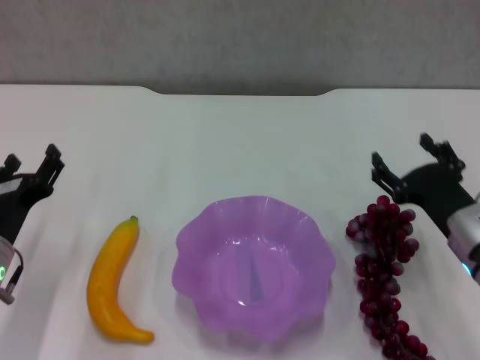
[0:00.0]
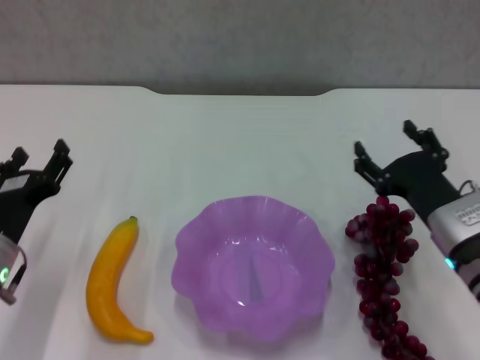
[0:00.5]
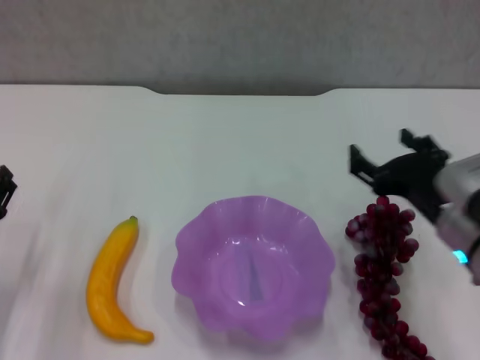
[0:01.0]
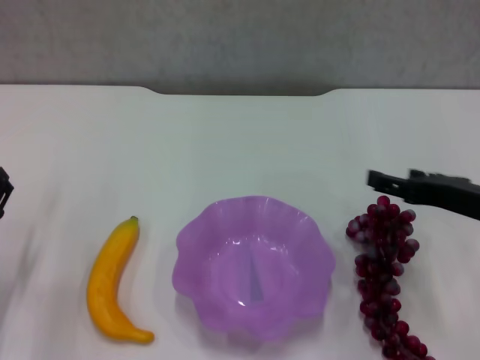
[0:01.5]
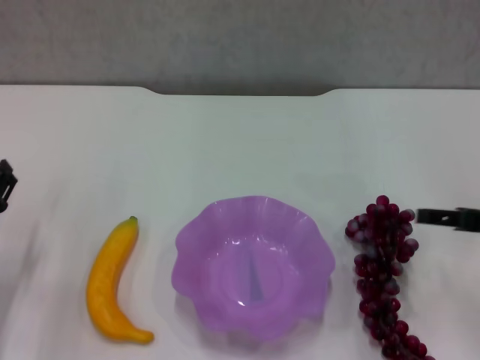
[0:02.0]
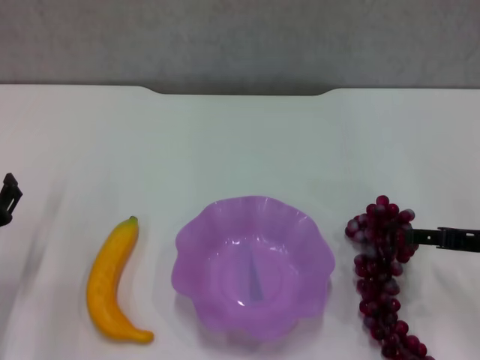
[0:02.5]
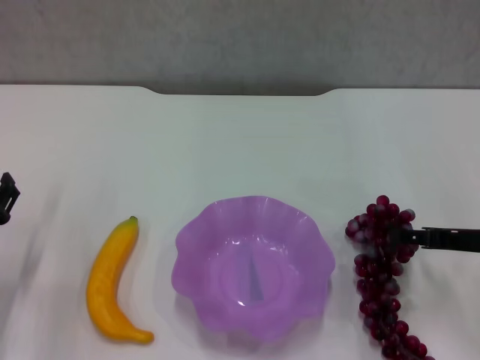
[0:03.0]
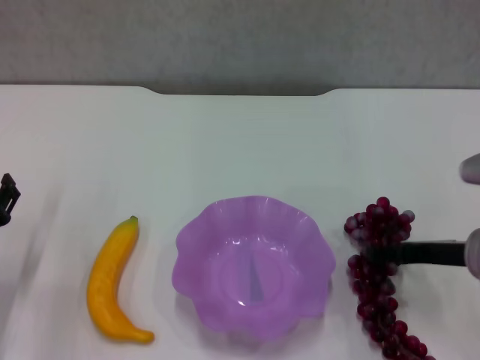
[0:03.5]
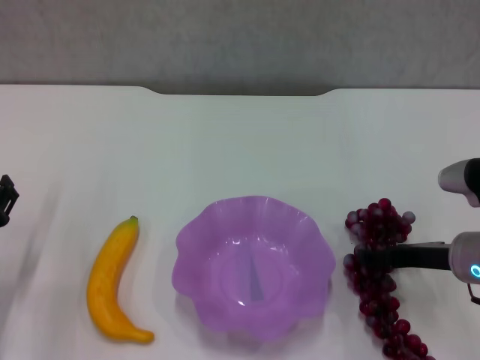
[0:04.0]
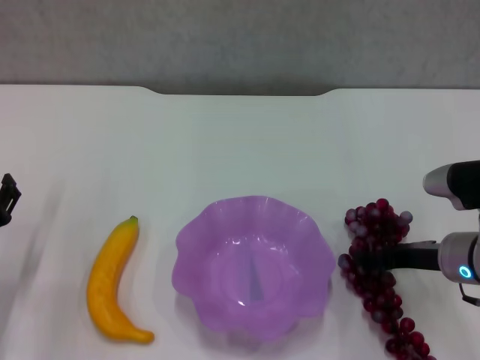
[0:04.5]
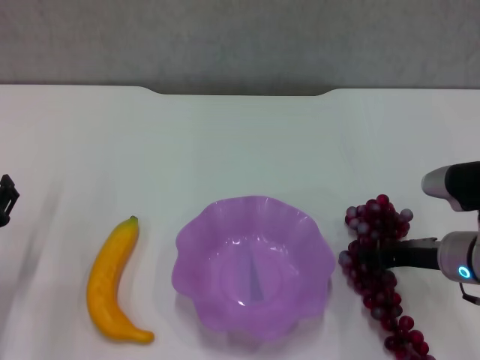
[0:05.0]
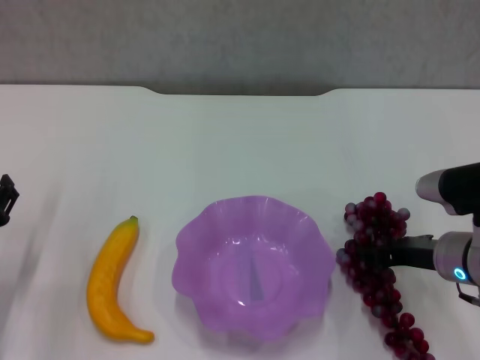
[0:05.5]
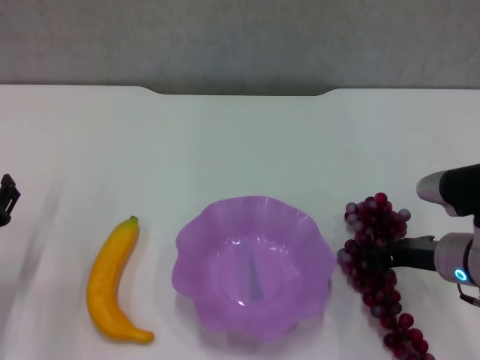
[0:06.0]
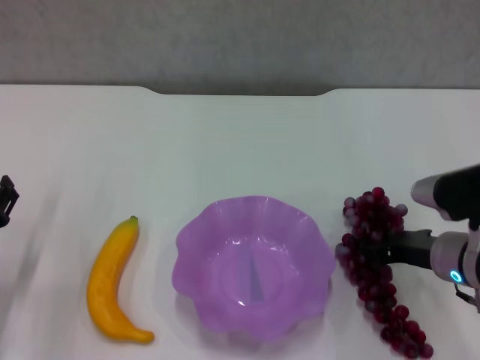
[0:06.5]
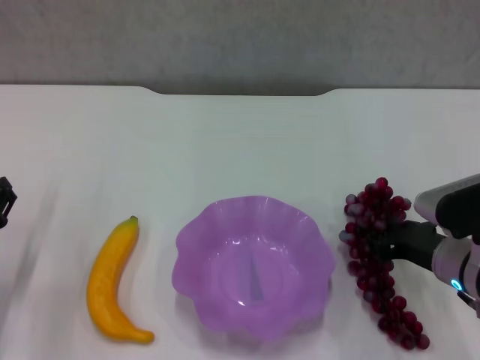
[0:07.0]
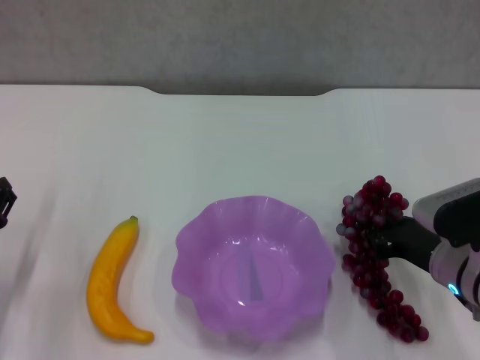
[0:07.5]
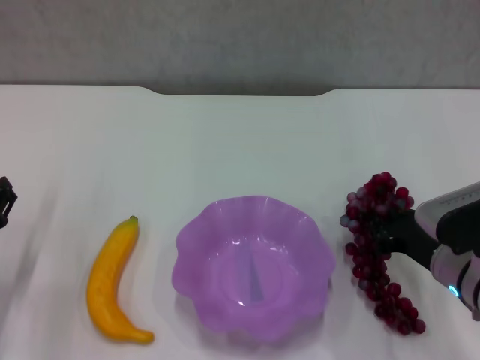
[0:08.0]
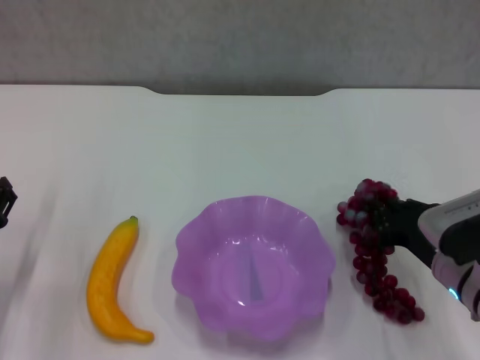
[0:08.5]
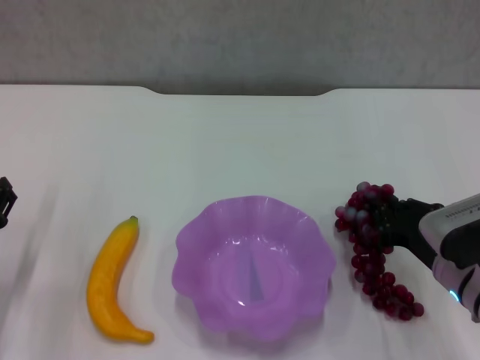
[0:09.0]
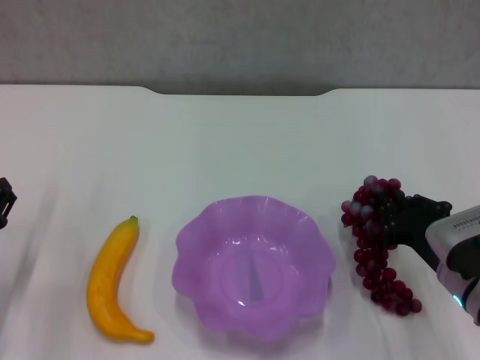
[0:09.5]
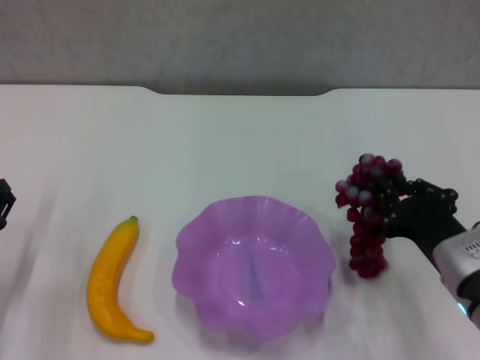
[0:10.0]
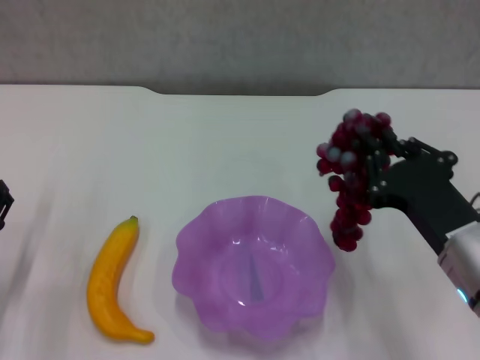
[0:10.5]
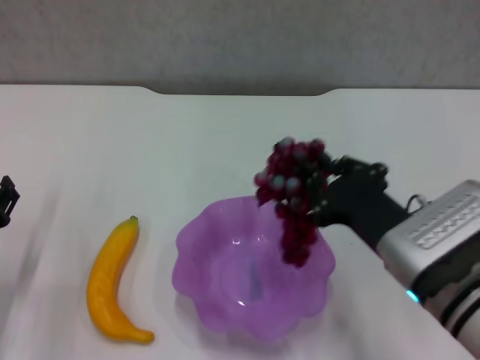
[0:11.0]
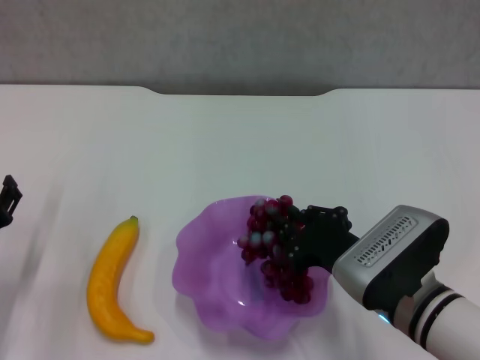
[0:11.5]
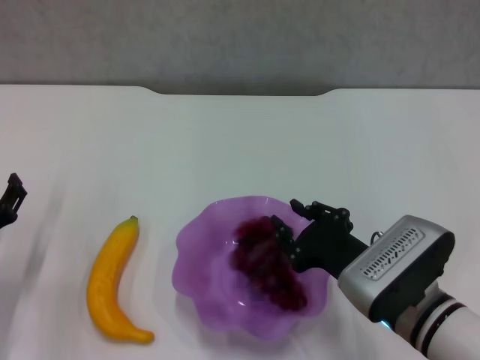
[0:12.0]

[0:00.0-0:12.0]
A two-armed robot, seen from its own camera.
Step, 0:00.0 to 0:05.5: Grasp the grape with right gripper.
0:00.0 to 0:02.0: The right gripper shifts about 10 cm upward and to the right.
0:02.0 to 0:04.0: The right gripper goes approximately 10 cm downward and to the left.
0:04.0 to 0:06.0: The right gripper closes.
0:10.0 to 0:12.0: The right gripper goes some 5 cm to the left.

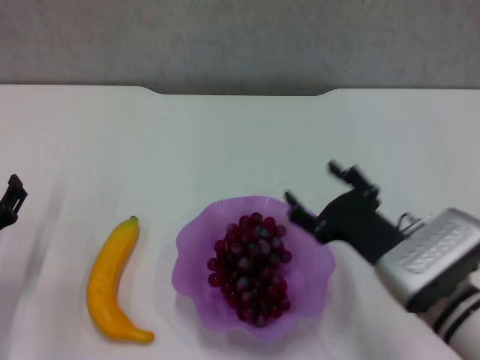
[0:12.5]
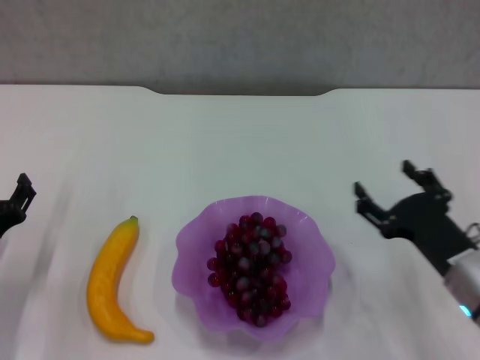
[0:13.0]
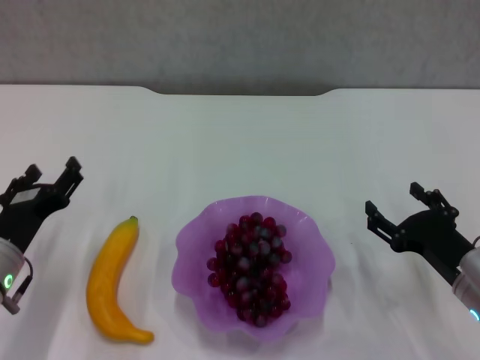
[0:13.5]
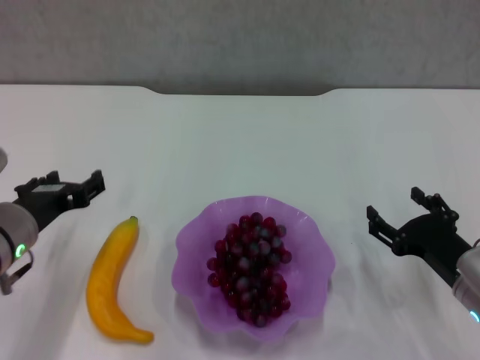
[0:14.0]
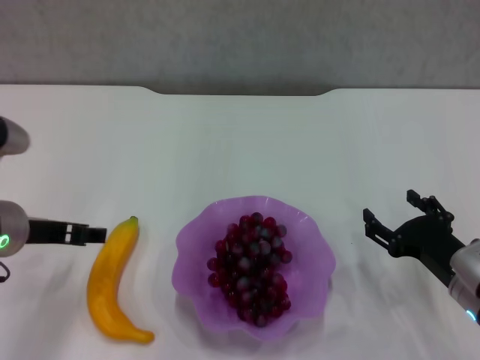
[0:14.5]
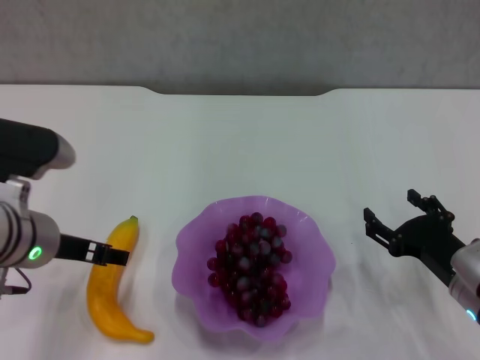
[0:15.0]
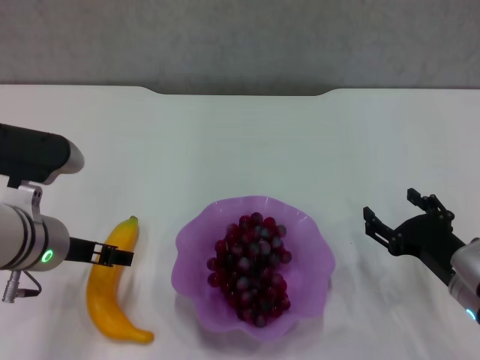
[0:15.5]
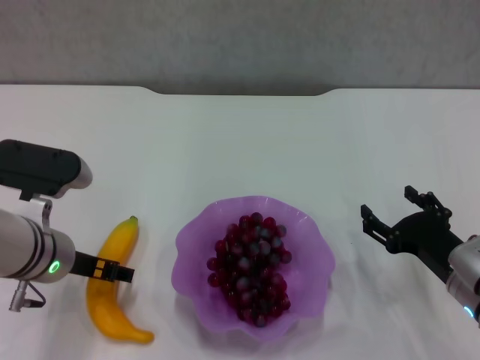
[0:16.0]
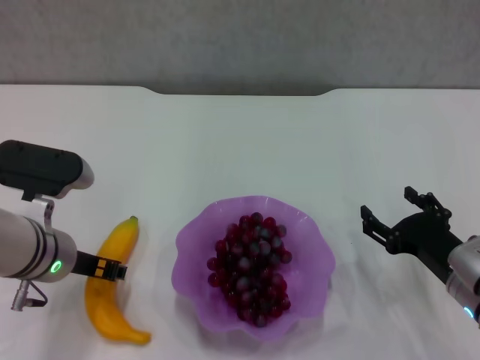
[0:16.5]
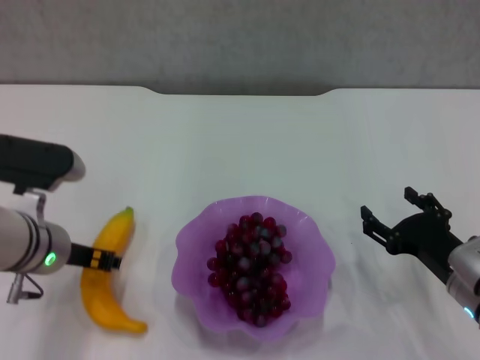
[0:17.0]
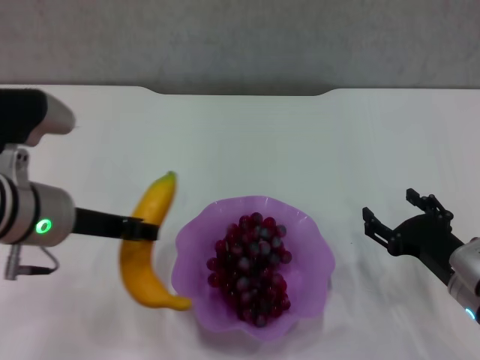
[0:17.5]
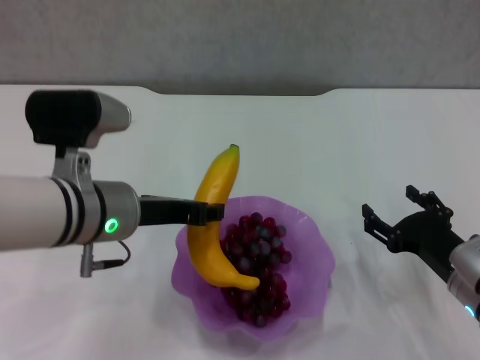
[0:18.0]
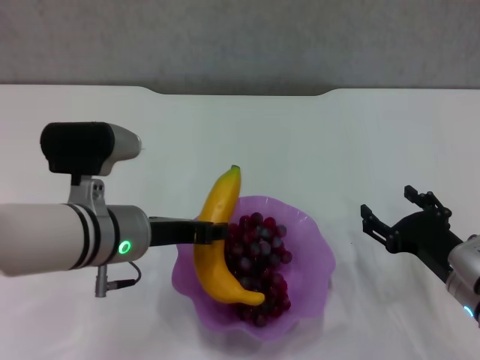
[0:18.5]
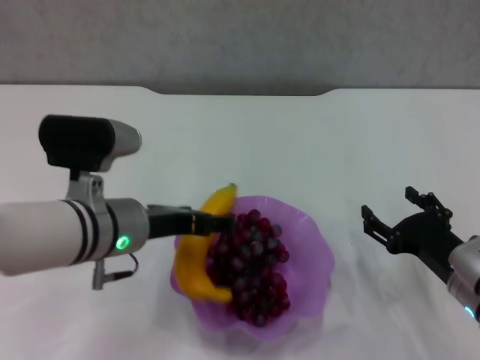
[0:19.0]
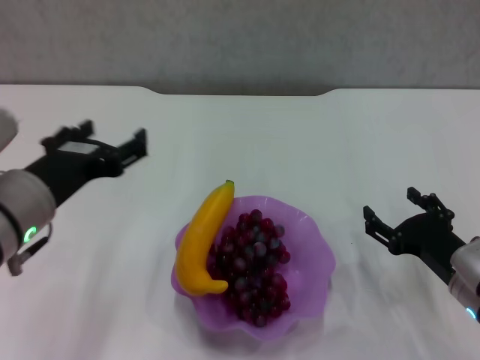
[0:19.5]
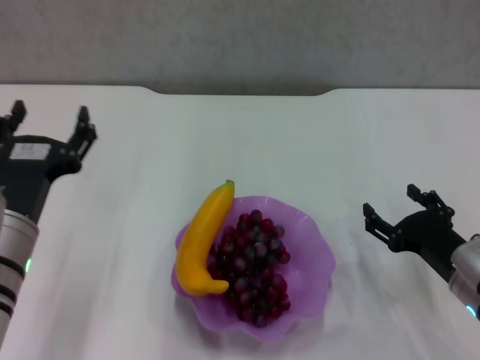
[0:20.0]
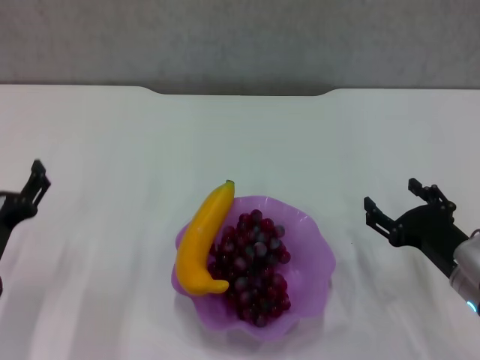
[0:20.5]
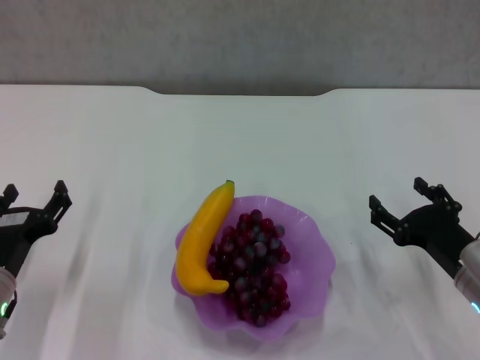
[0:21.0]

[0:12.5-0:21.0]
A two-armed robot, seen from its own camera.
Step, 0:13.0 to 0:16.5: Grasp the banana with left gripper.
Step, 0:17.0 to 0:19.0: Place the banana in the purple plate with left gripper.
0:12.5 to 0:14.5: The right gripper goes some 10 cm to the right; the left gripper travels upward and to the right by roughly 10 cm.
0:14.5 to 0:16.5: The left gripper moves some 5 cm.
0:16.5 to 0:19.0: The left gripper heads to the right, covering some 5 cm, and closes, then reopens.
0:19.0 to 0:21.0: The left gripper shifts roughly 15 cm to the left, downward and backward.

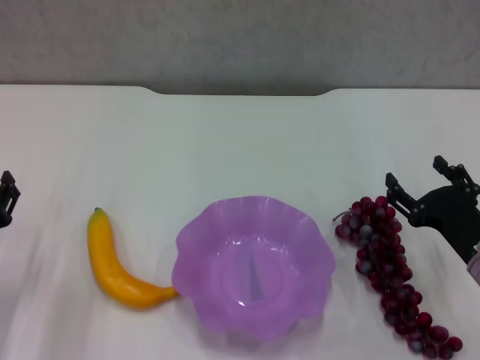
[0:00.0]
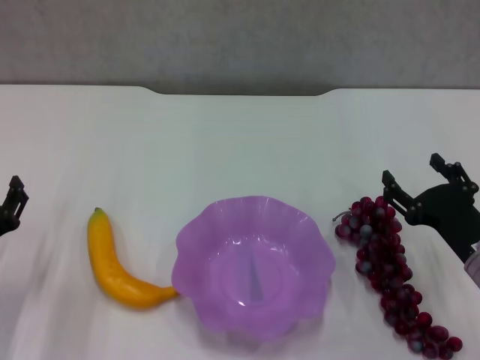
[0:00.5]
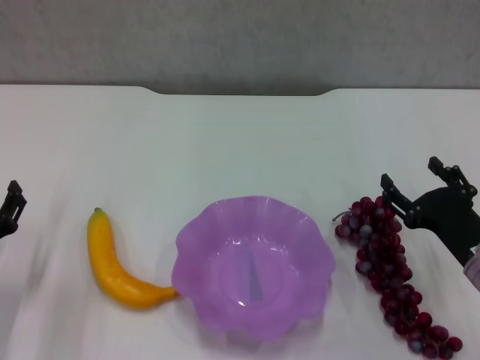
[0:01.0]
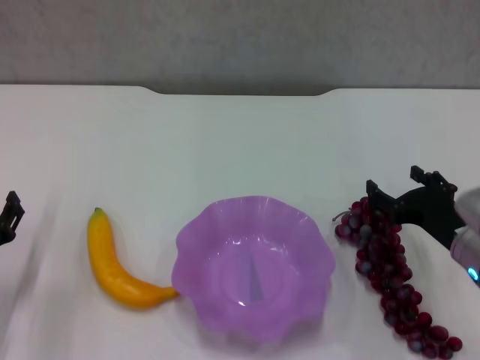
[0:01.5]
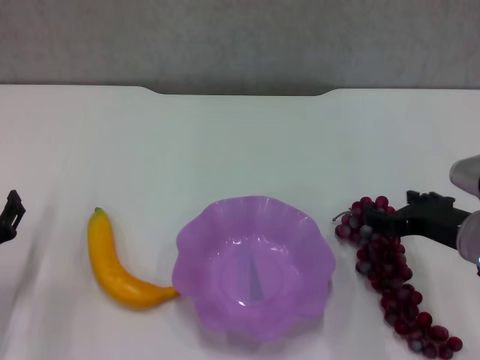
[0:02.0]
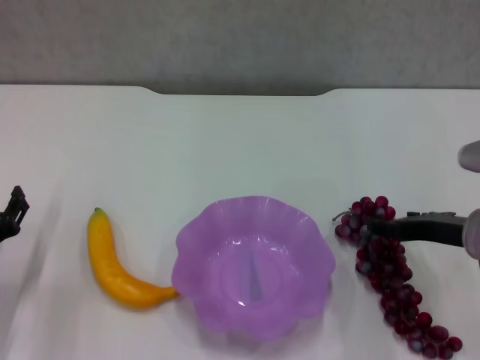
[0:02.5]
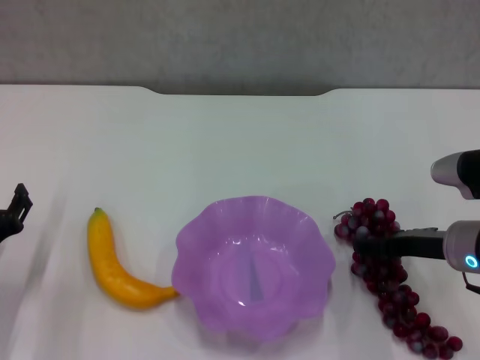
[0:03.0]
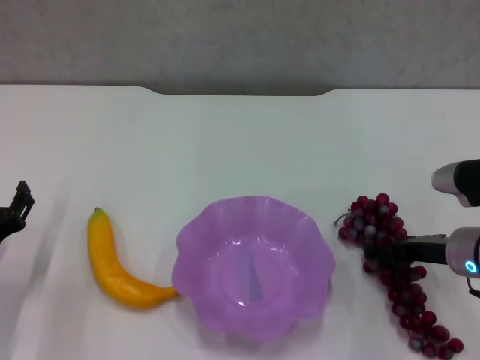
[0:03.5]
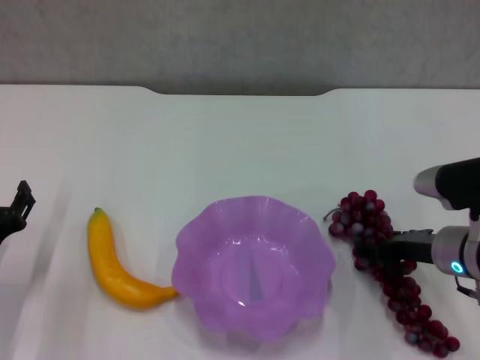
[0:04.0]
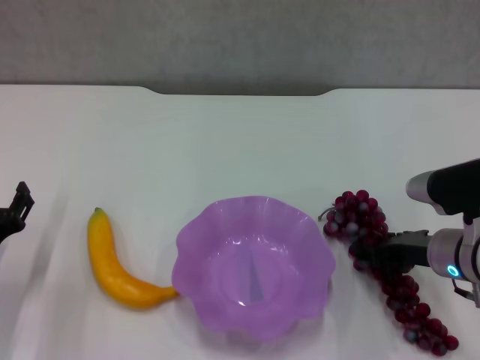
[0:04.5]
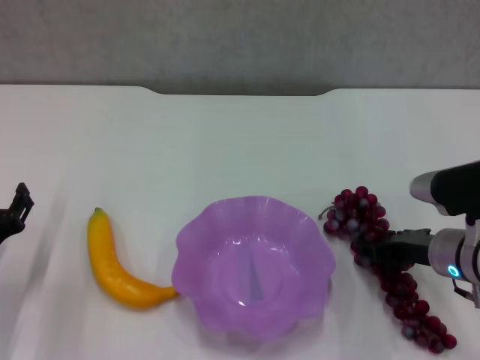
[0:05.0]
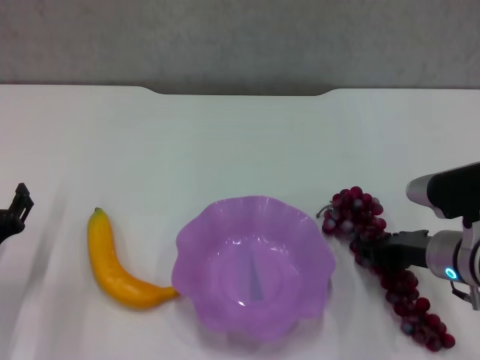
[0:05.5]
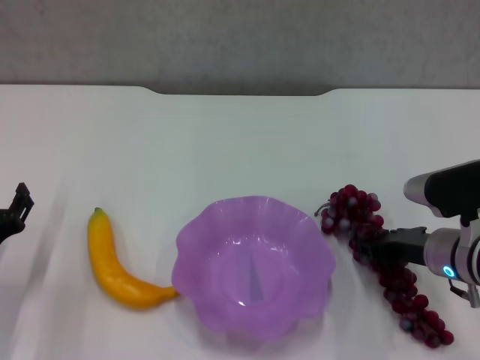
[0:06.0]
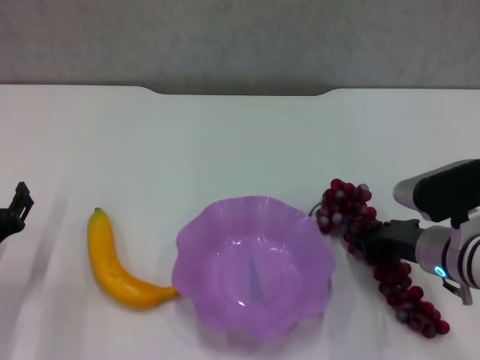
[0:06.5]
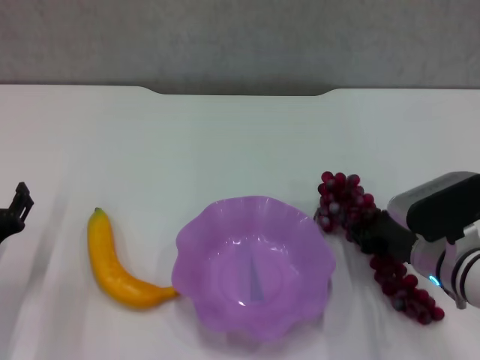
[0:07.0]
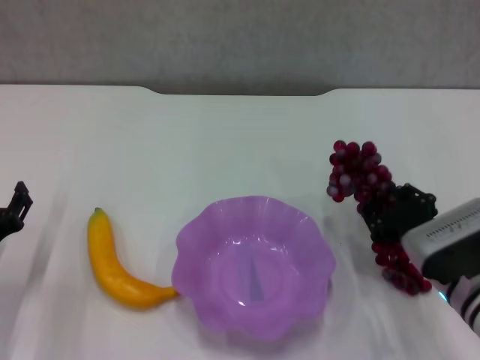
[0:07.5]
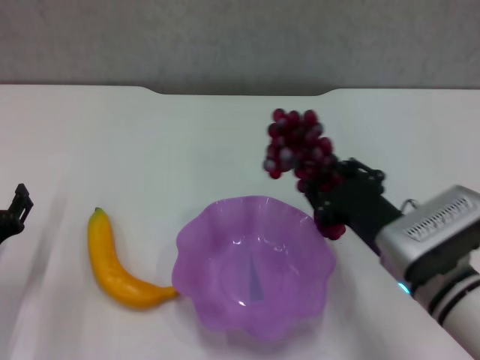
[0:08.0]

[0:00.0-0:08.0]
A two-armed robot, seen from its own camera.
Step, 0:00.0 to 0:04.0: Grasp the grape with right gripper.
0:00.0 to 0:02.0: The right gripper travels upward by about 5 cm.
0:02.0 to 0:04.0: The grippers stay close to where they were, moving slightly.
0:04.0 to 0:06.0: The right gripper closes up.
0:06.0 to 0:08.0: The right gripper moves to the left and backward, roughly 10 cm.
